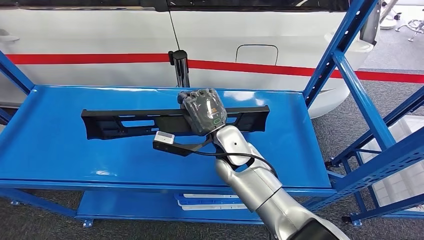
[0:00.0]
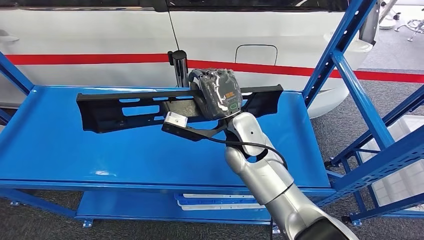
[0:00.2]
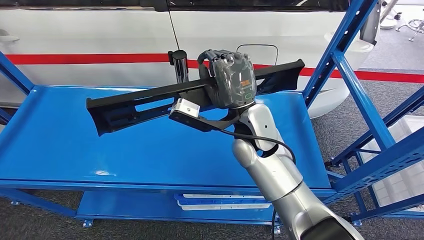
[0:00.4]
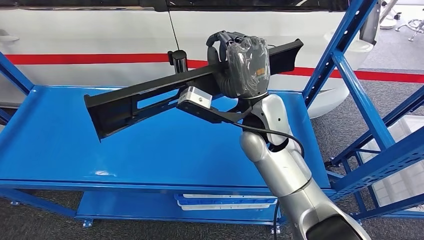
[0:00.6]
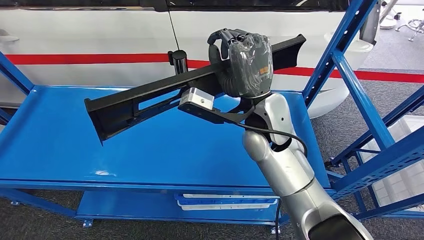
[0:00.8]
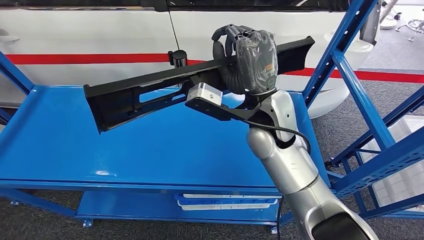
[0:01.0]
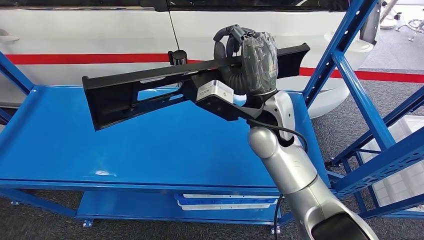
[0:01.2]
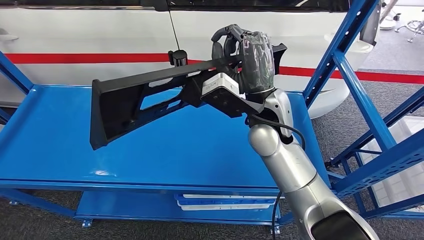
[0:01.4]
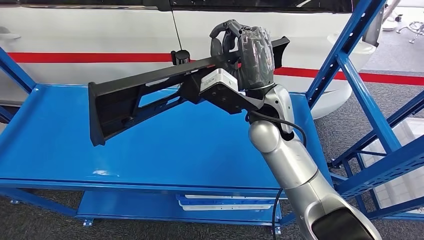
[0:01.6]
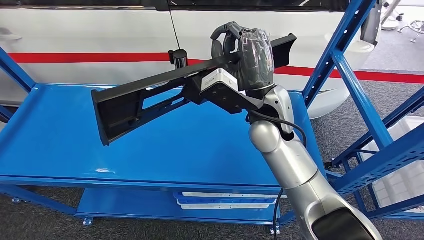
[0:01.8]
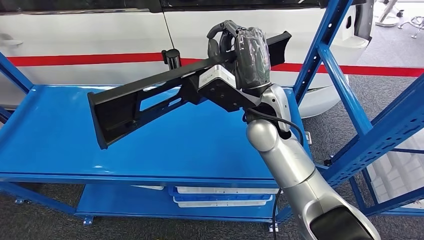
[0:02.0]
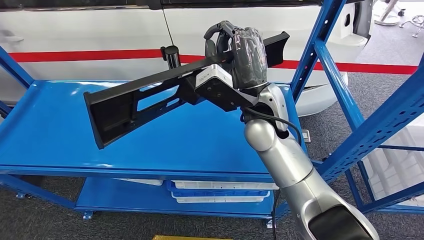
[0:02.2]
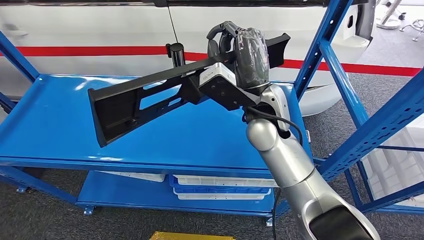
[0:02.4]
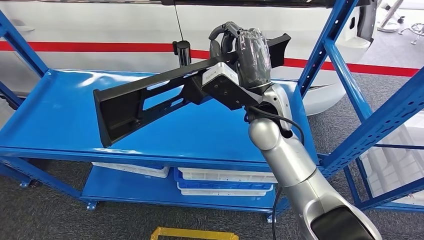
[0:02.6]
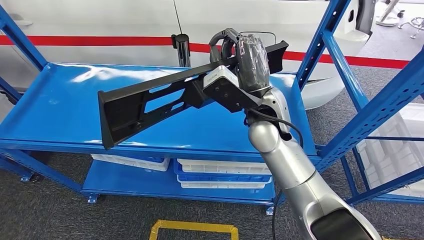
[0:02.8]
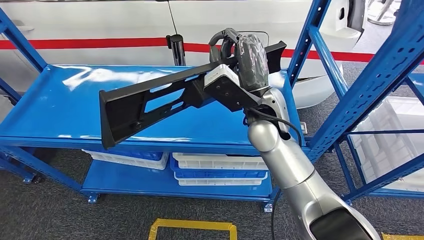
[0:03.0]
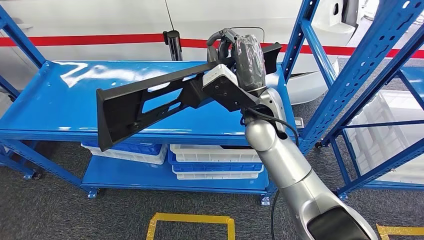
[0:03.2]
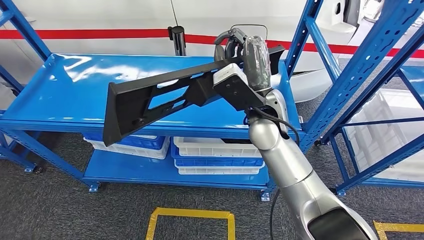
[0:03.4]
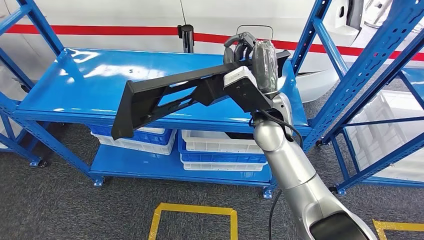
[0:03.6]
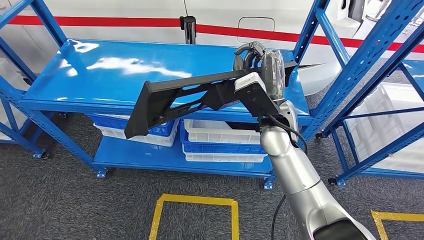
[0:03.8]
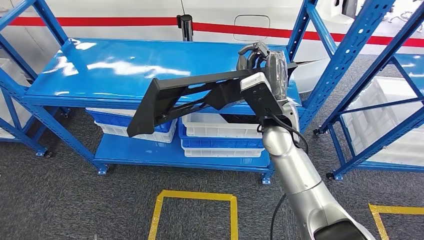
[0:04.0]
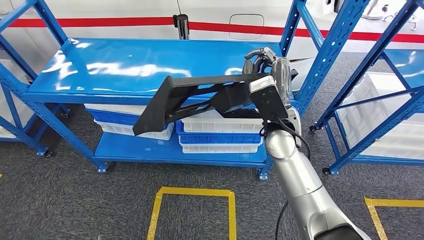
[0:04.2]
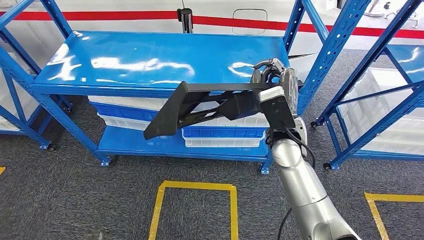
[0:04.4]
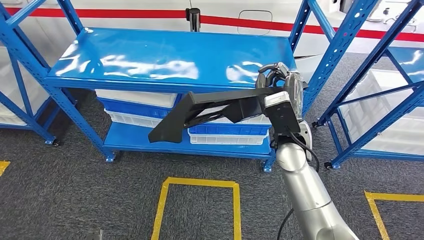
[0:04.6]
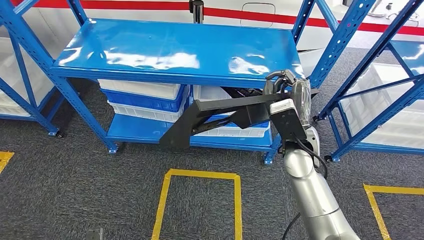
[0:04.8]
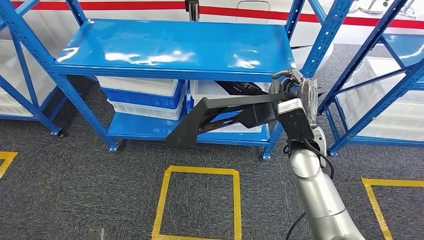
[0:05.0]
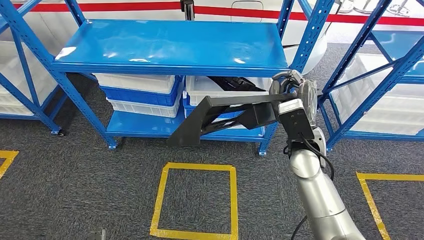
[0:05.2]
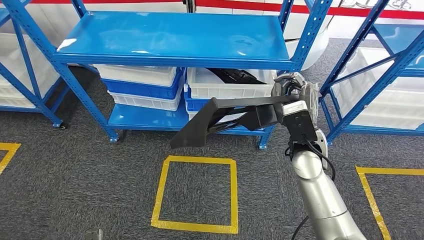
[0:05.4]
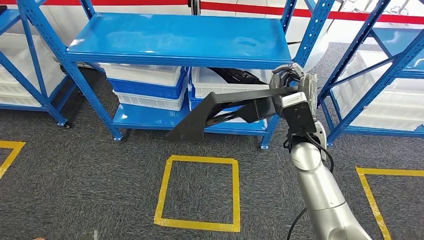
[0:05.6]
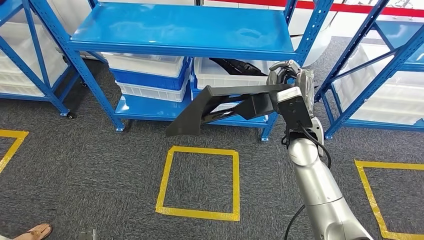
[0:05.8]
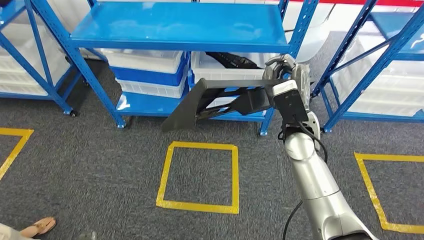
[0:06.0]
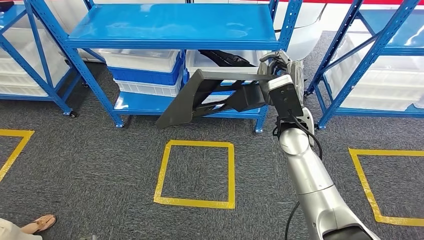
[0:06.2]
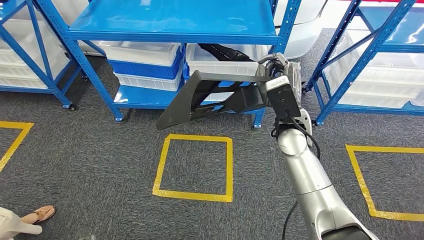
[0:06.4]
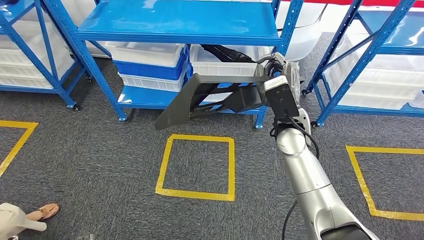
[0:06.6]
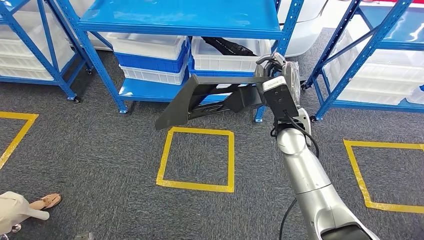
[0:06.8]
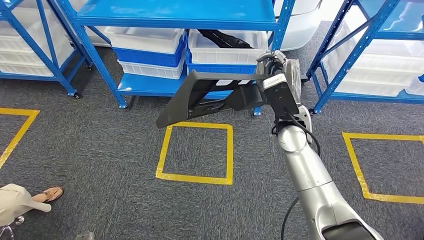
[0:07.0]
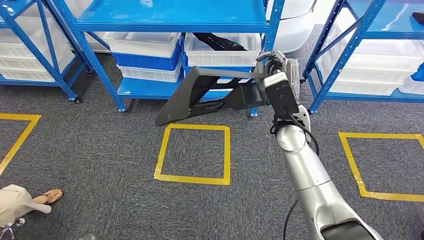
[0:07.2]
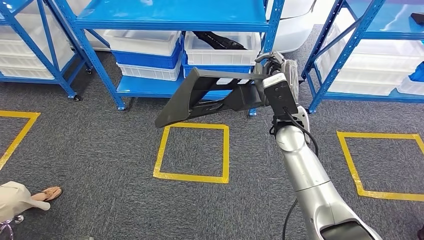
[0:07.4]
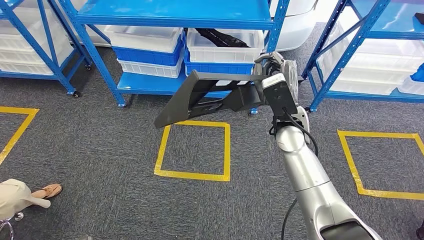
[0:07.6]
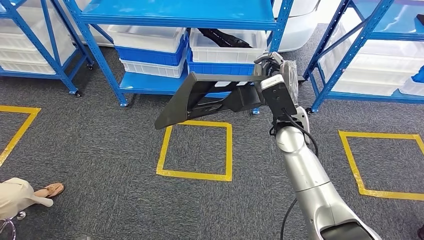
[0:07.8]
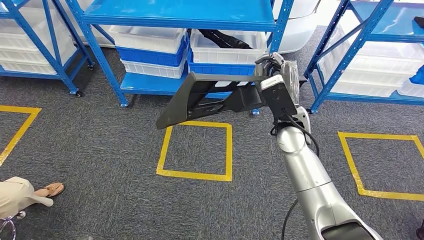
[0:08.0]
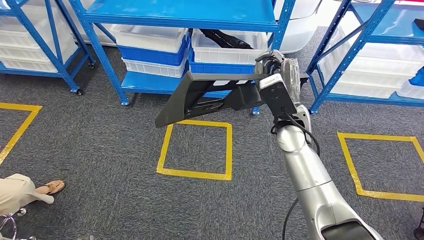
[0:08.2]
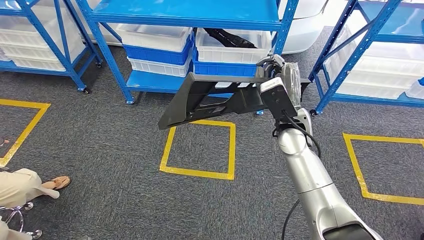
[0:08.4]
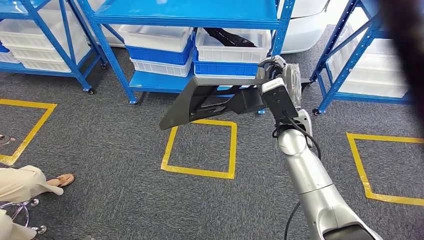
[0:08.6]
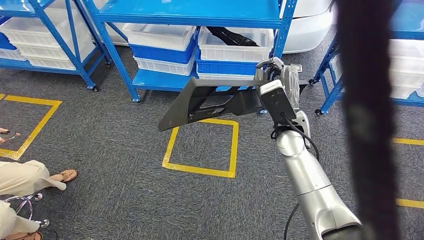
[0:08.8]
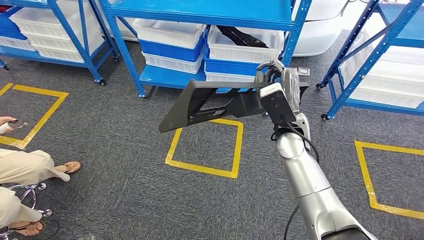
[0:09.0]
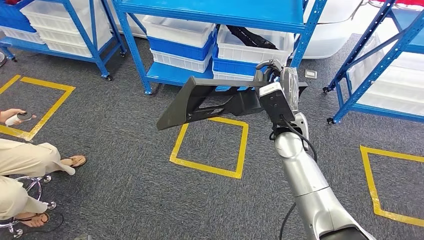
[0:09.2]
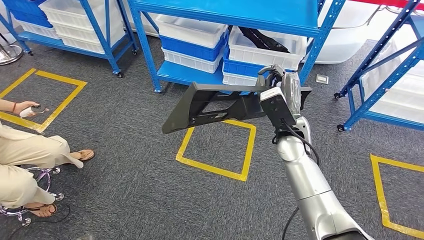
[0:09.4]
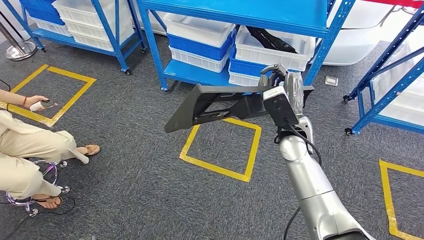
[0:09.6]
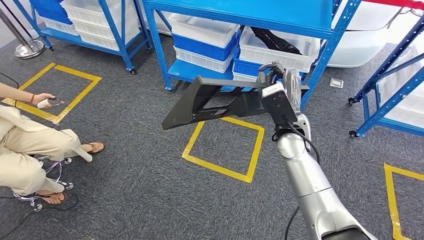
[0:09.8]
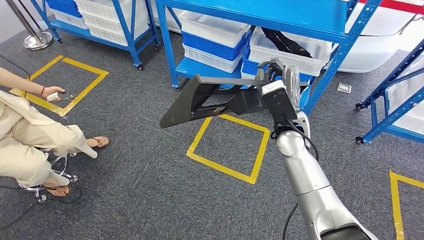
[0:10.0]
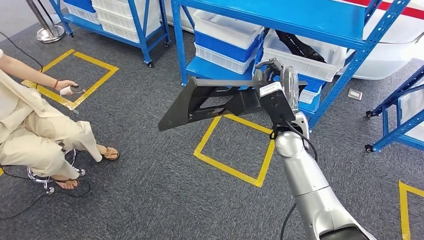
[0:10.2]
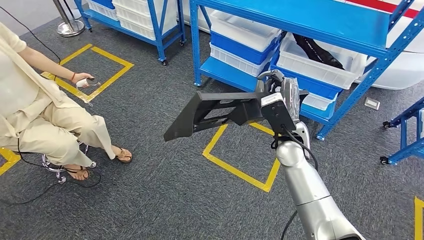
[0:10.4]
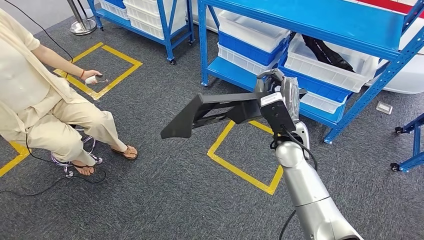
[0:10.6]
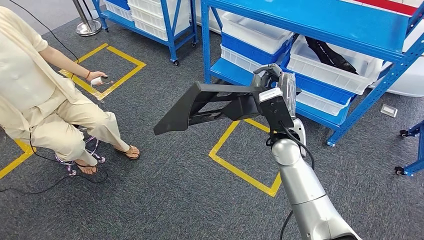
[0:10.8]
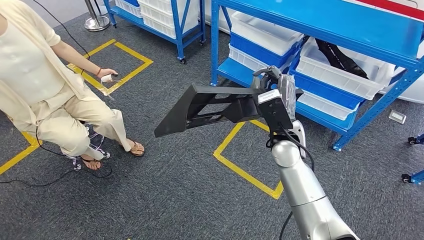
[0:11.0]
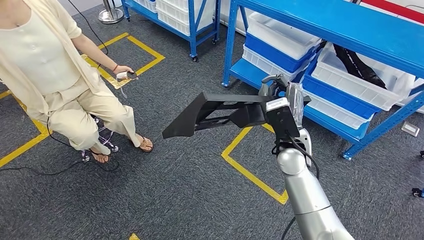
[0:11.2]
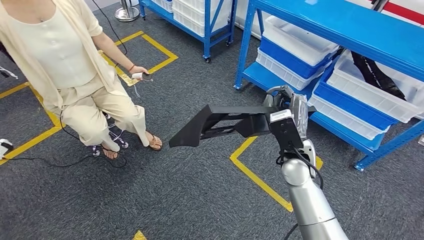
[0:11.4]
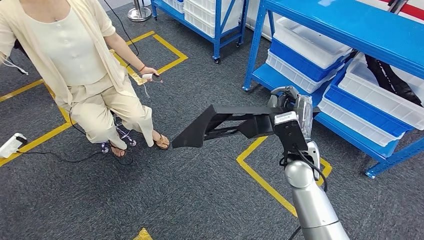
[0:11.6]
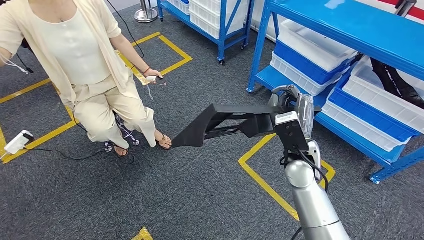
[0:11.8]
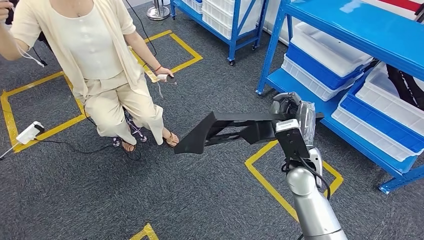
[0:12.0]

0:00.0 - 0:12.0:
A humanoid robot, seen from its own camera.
Step, 0:00.0 - 0:05.2: Pick up the large material from the shelf.

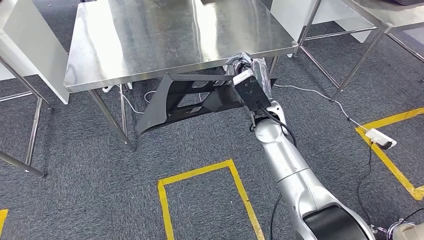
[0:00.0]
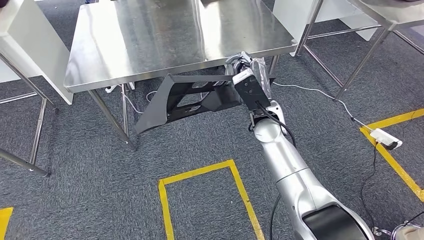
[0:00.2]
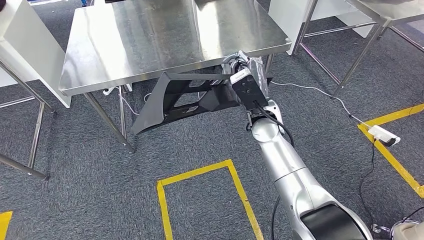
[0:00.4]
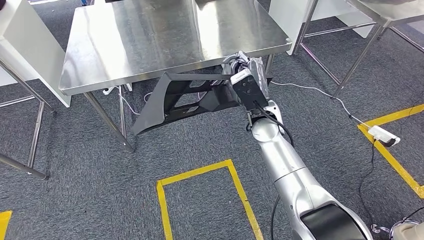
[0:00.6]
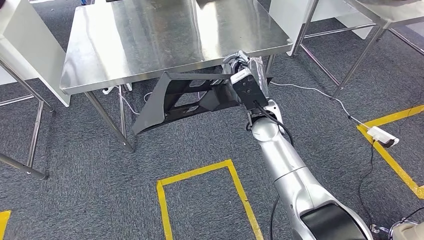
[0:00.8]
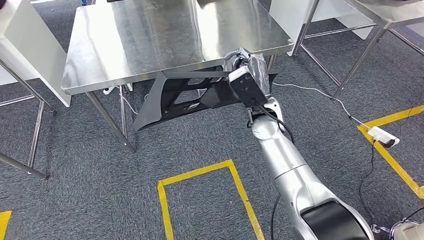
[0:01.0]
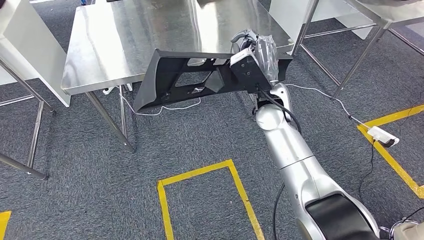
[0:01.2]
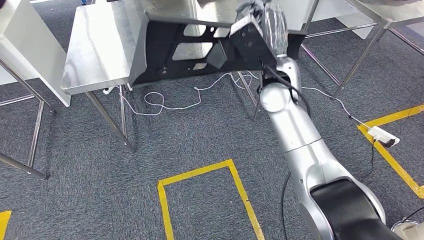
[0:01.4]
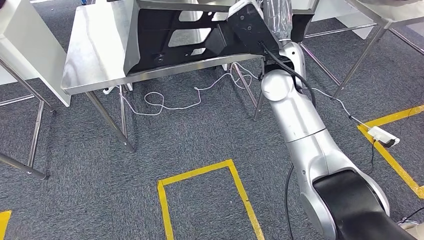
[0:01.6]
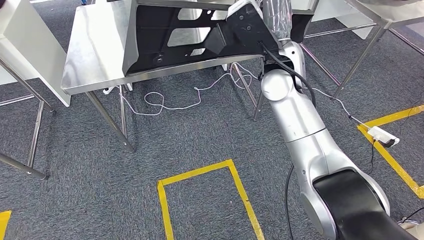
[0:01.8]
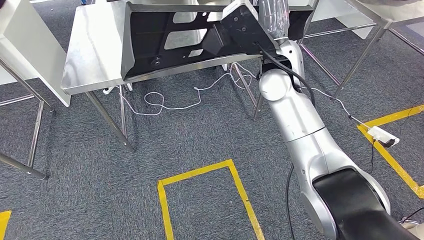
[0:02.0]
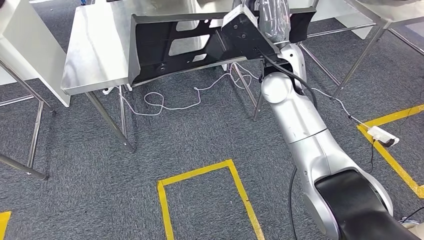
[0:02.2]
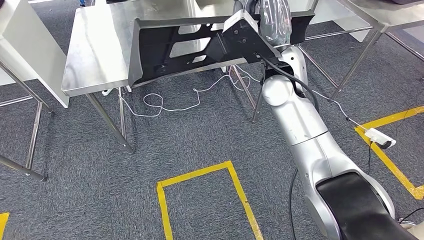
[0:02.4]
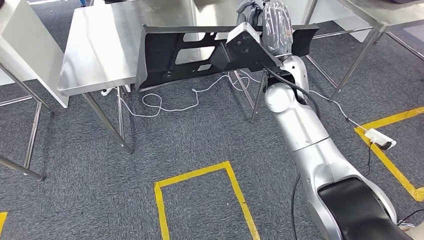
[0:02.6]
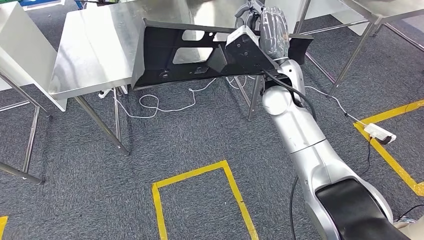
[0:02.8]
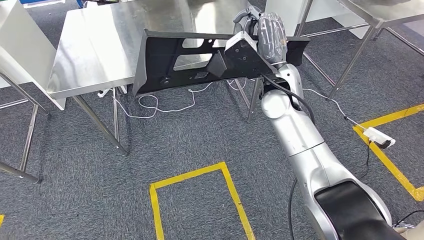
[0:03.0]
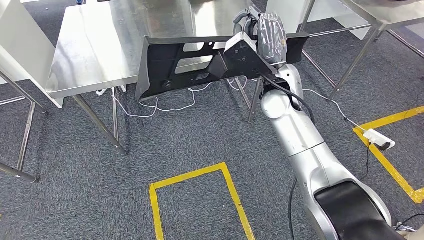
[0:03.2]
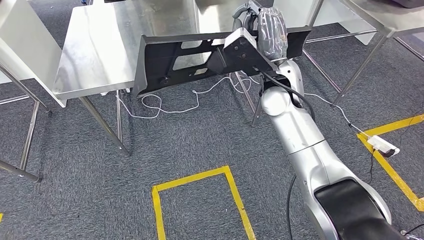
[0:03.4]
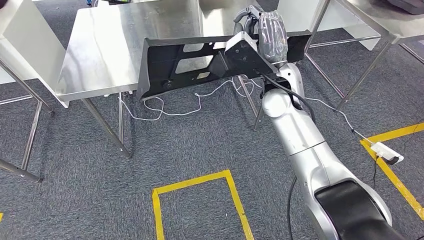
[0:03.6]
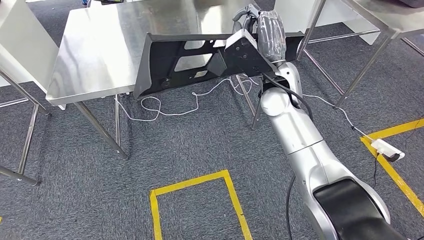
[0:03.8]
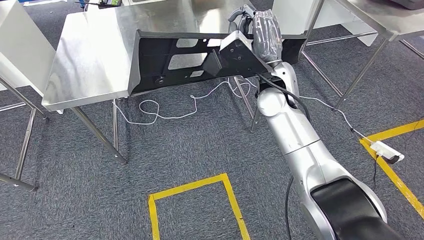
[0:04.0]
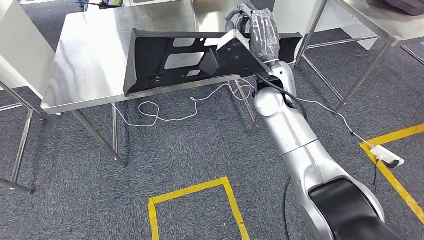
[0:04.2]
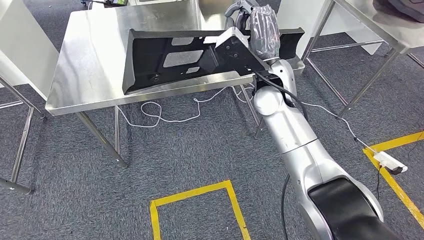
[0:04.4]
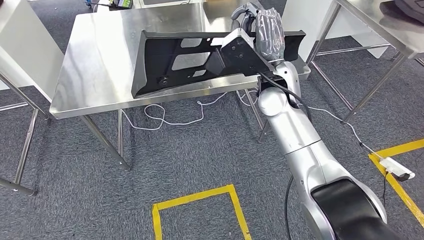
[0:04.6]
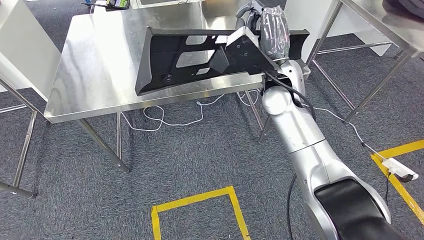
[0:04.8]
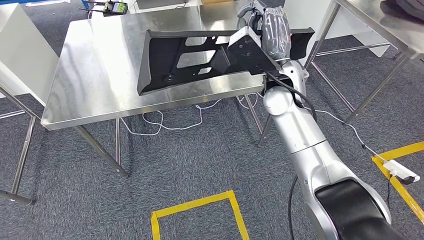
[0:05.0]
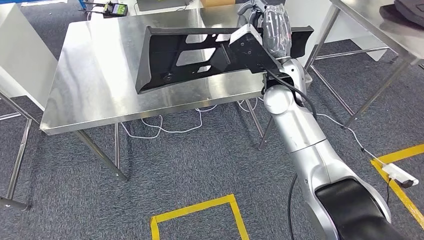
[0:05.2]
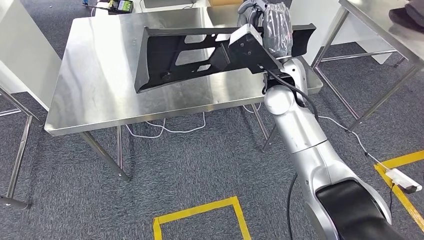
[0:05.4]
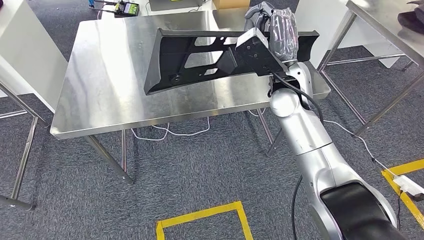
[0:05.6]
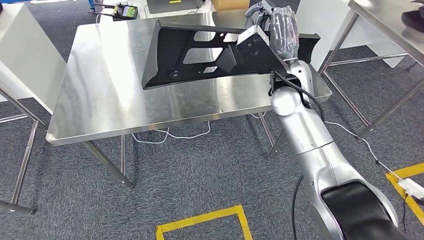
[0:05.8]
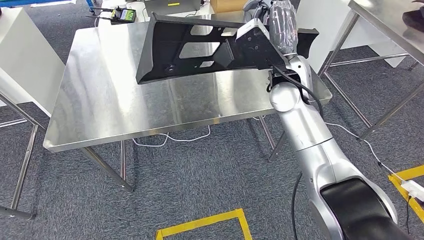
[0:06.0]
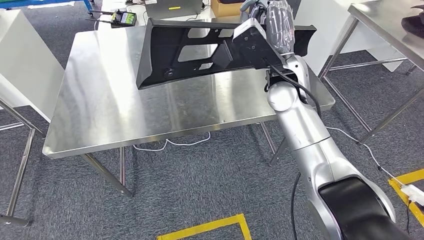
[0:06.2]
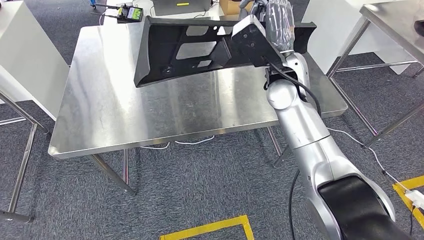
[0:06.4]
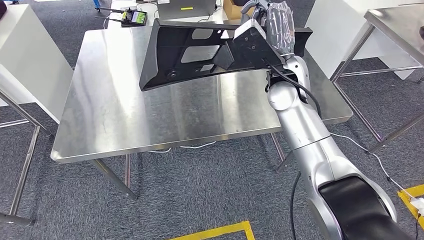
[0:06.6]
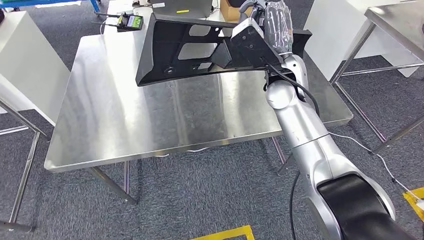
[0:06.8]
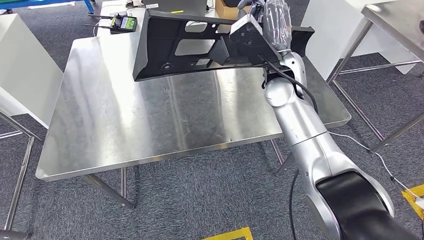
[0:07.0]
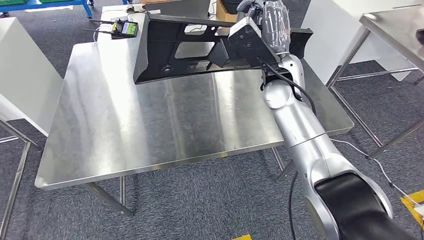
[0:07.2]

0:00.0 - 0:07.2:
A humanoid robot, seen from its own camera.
Step, 0:00.0 - 0:02.2: Move the large material to the workbench.
